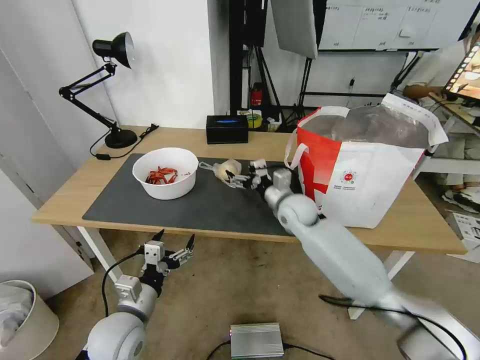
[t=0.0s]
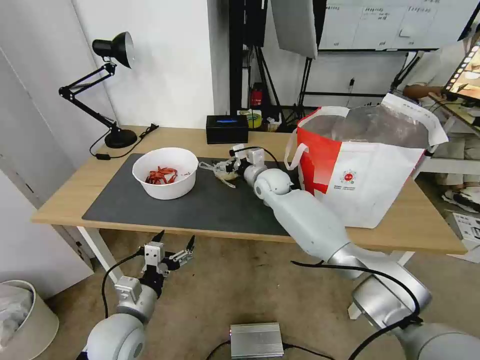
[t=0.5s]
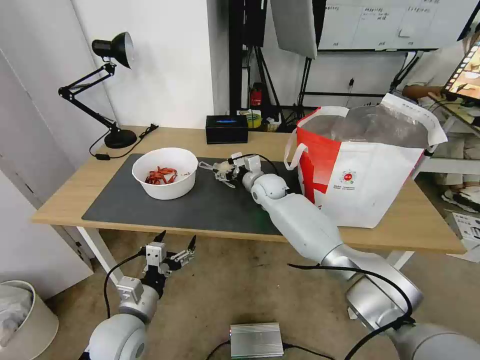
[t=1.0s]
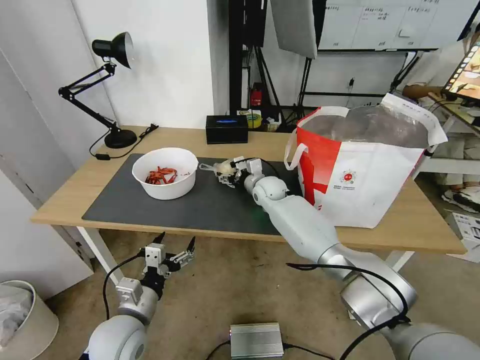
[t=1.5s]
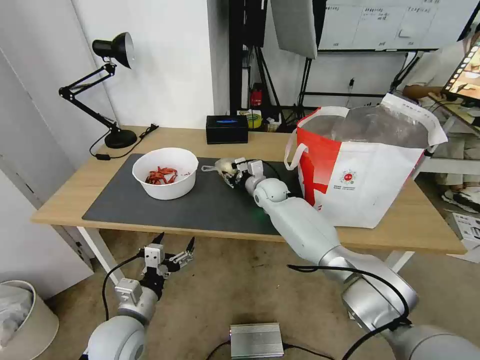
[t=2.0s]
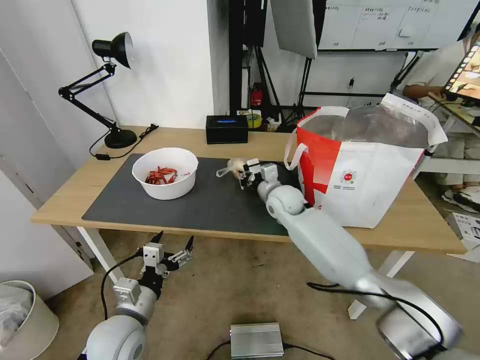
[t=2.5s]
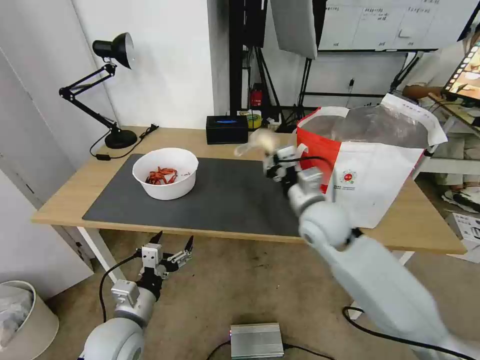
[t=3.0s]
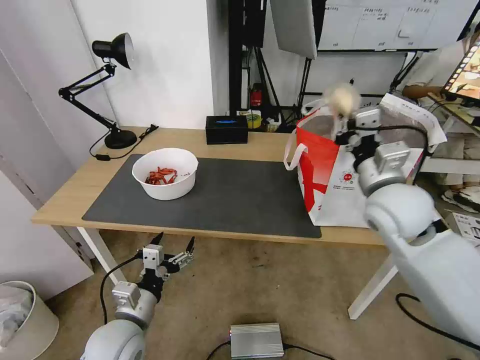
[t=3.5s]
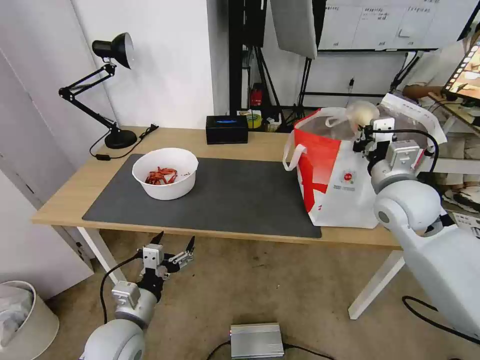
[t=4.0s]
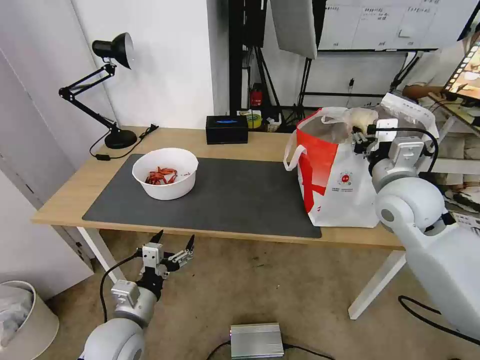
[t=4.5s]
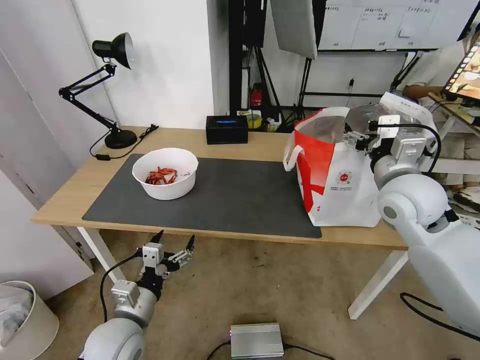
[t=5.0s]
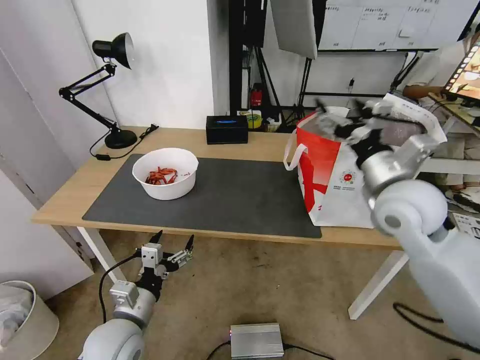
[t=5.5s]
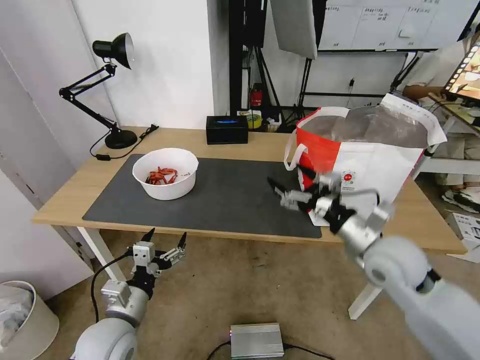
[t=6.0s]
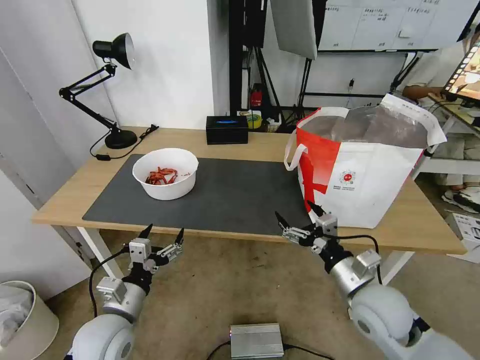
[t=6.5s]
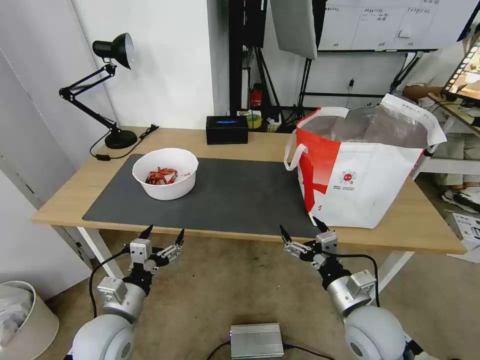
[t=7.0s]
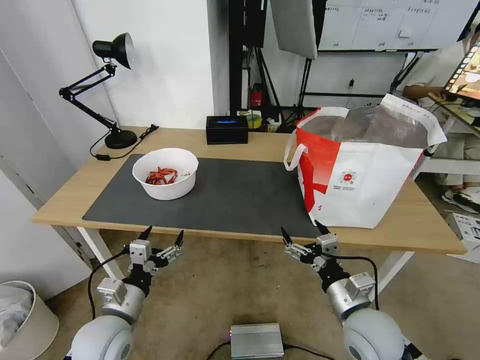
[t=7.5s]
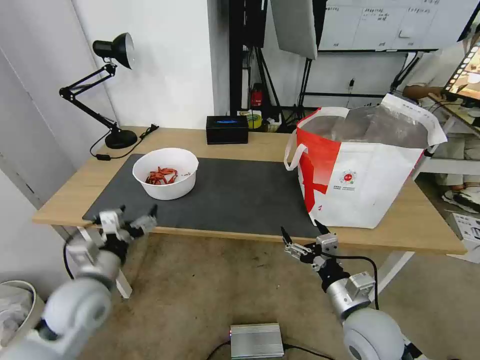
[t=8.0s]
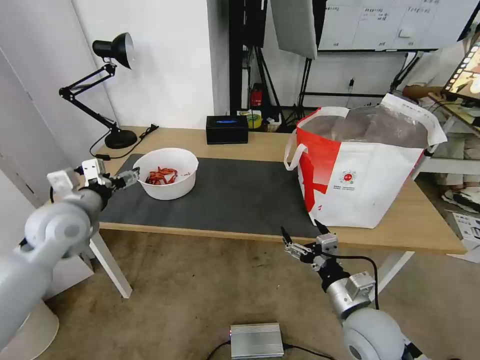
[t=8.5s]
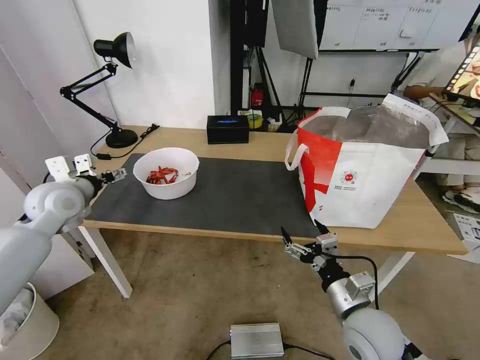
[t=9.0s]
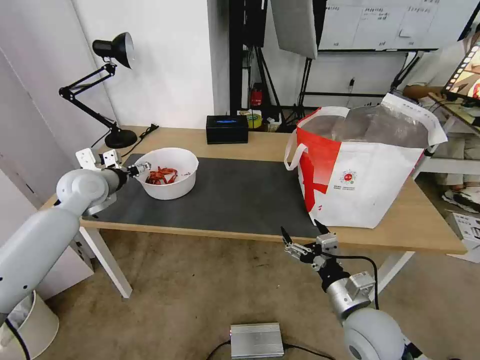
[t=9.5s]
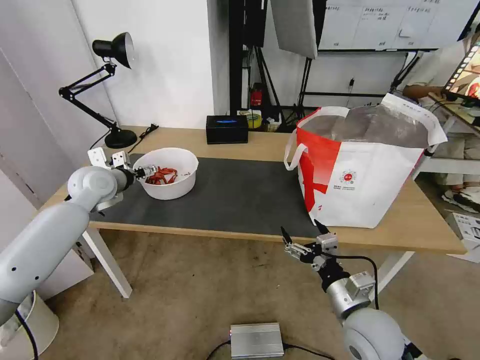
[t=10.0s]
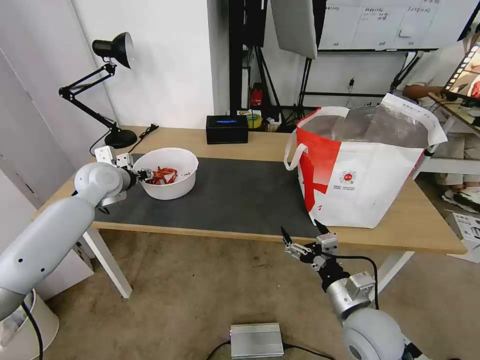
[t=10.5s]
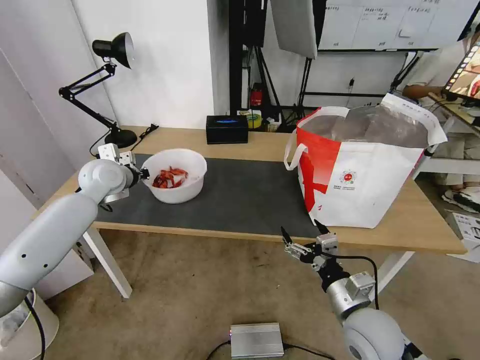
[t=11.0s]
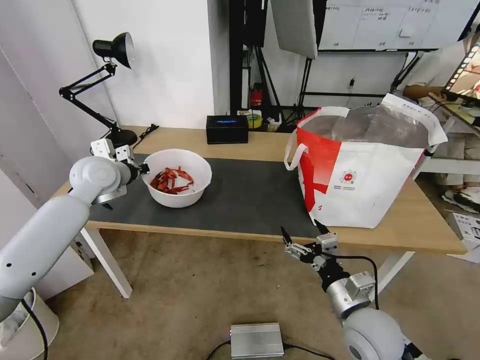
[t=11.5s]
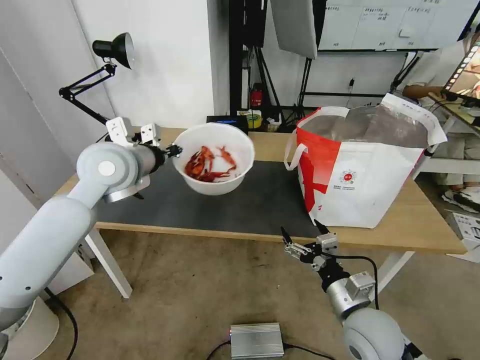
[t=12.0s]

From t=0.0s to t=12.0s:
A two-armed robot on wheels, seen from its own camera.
Task of the whole recording: Pick up the trash from the table and place it into the takeout bag.
From t=0.0s to t=2.0s: The right gripper shifts about 10 cm forward, and closes.
From t=2.0s to t=4.0s: The right gripper goes some 35 cm to the right, backward and upward.
From t=4.0s to t=6.0s: The right gripper goes some 10 cm backward and downward, and opens.
From t=6.0s to t=8.0s: The right gripper goes approximately 15 cm downward and backward; the left gripper is displaced upward and forward by approximately 10 cm.
From t=8.0s to t=10.0s: The left gripper travels forward by approximately 25 cm.
From t=10.0s to t=12.0s: The left gripper travels to the right, upward and backward by roughly 15 cm, and closes.

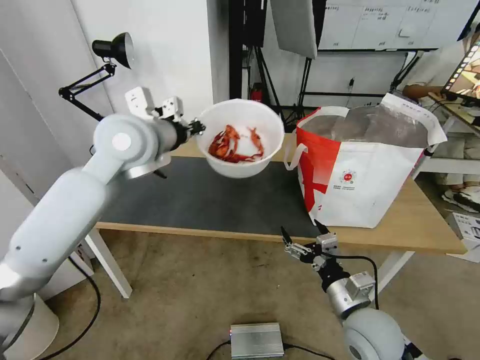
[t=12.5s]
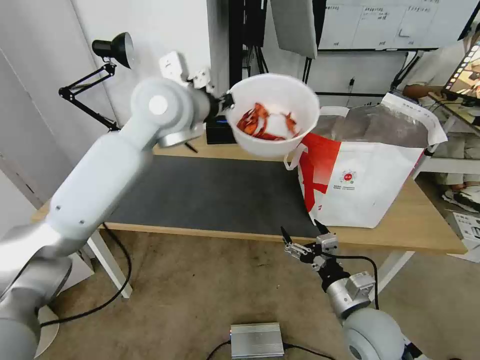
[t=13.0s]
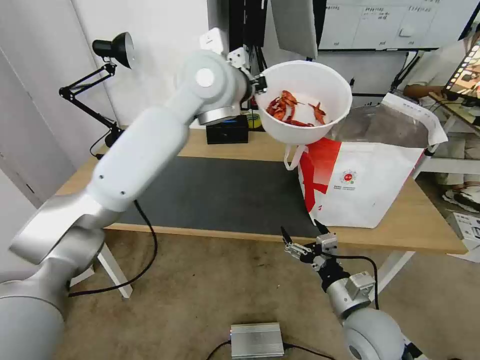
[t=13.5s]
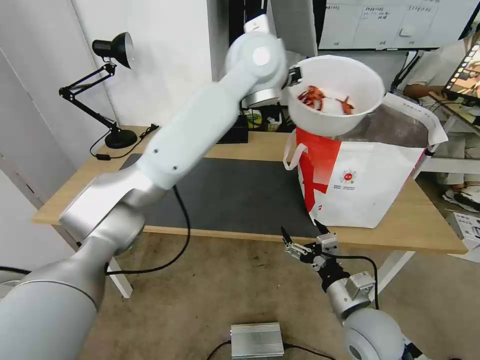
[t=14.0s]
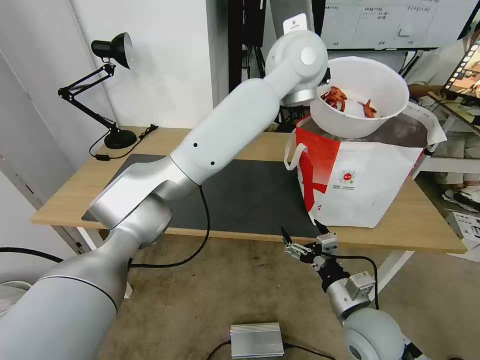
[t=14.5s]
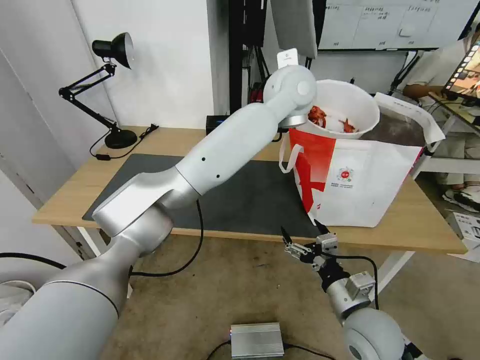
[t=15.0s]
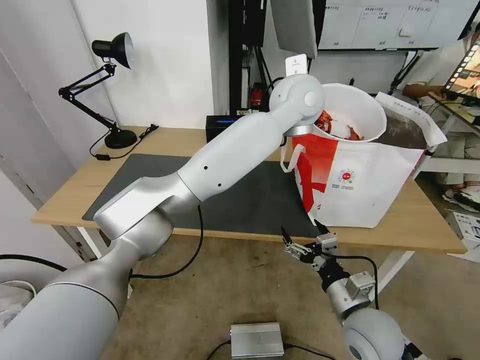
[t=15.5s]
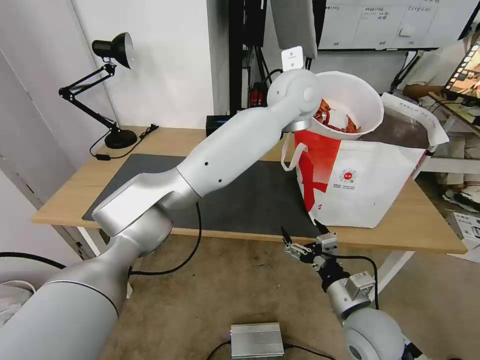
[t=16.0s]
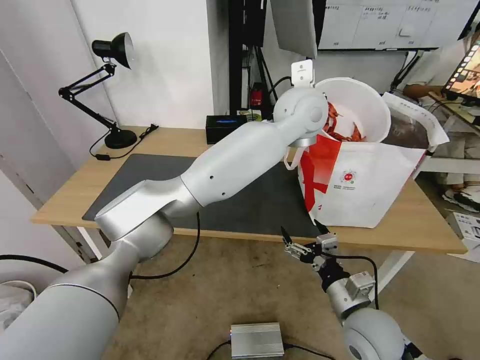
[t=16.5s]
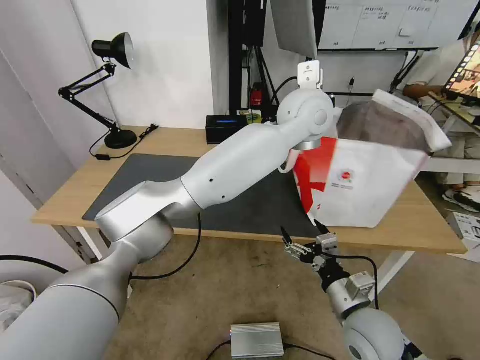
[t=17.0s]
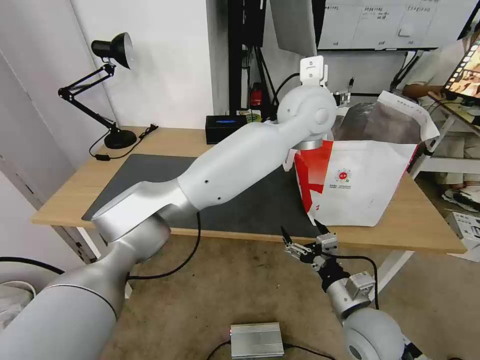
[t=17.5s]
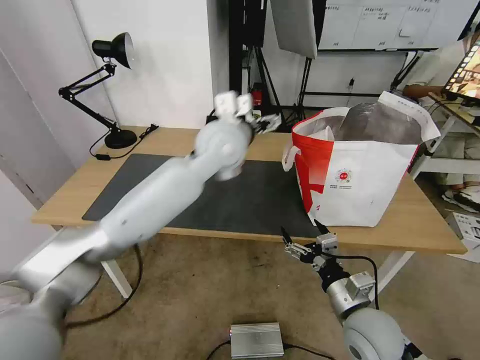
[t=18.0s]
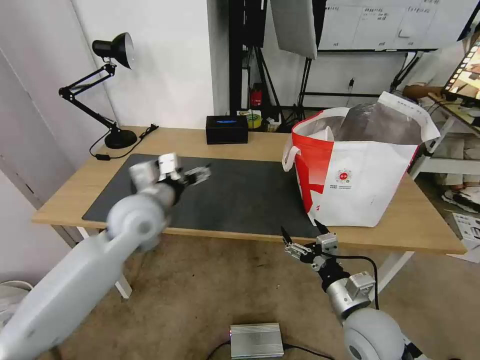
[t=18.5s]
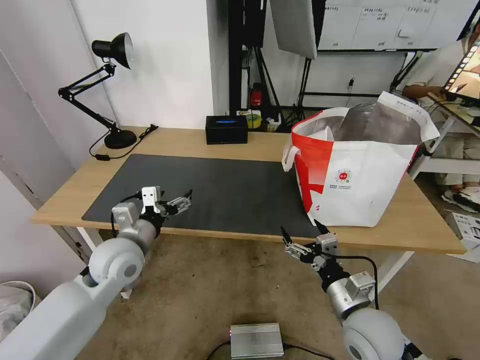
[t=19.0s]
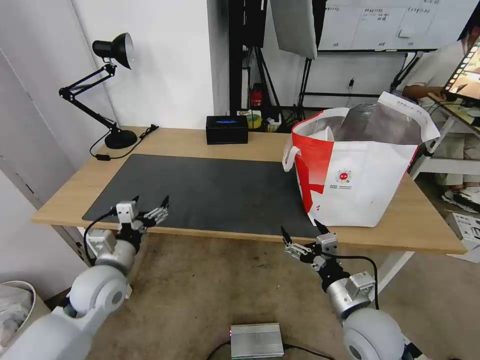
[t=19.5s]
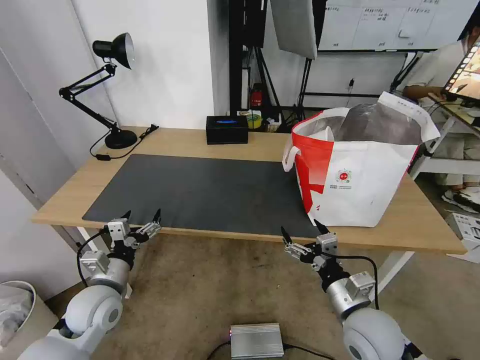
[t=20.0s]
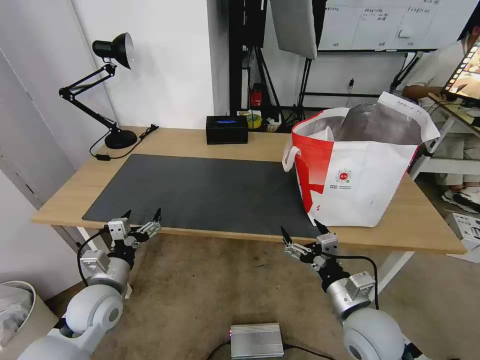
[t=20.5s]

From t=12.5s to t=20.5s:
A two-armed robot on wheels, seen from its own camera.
Task of the whole recording: Pick up the trash from the table and place it into the takeout bag.
From t=12.5s to t=14.5s: The left gripper goes approximately 30 cm to the right.
From t=14.5s to t=16.5s: The left gripper moves downward, some 10 cm.
From t=16.5s to t=18.5s: The left gripper heads to the left, downward and backward, covering roughly 35 cm, and opens up.
From t=18.5s to t=20.5s: The left gripper travels downward, backward and to the left by some 25 cm.
